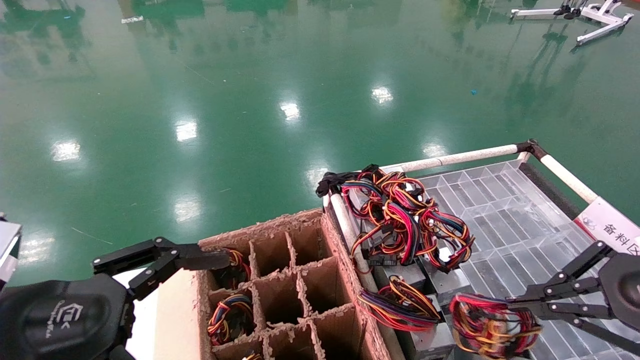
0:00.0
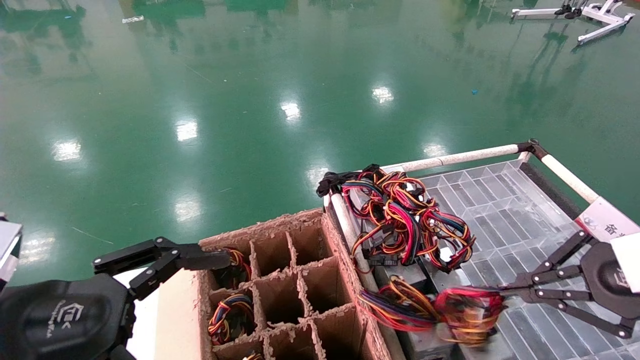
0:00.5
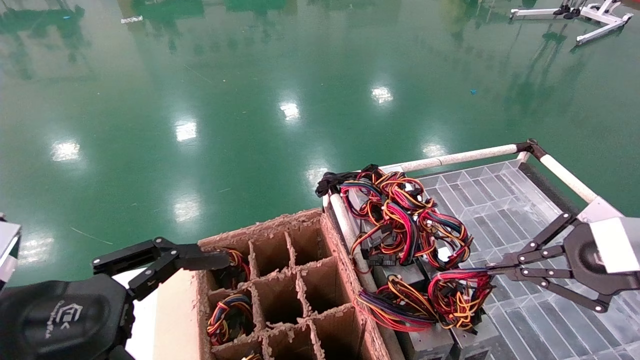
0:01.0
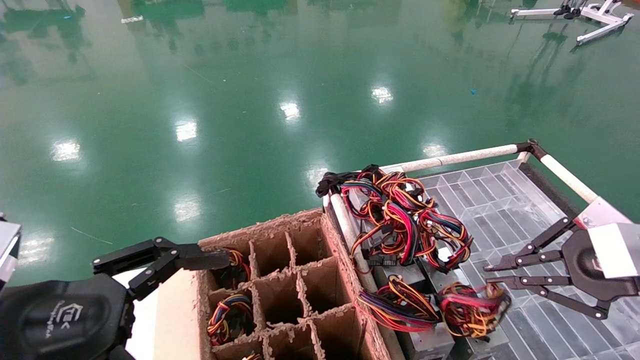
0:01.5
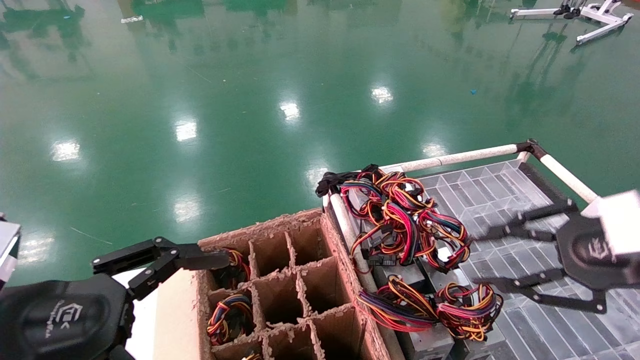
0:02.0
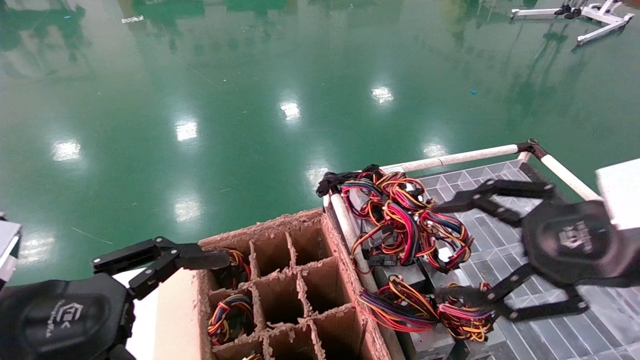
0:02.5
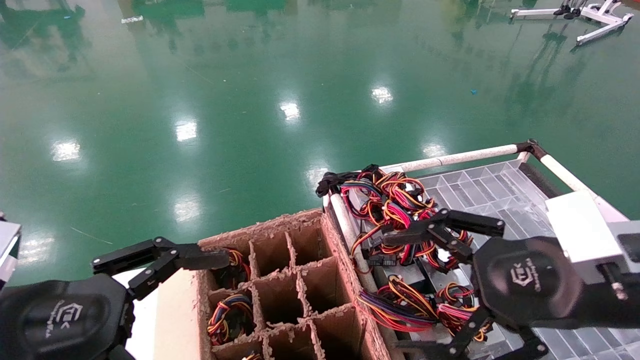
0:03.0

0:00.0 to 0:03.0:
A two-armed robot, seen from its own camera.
0:00.0 to 0:01.5: The grippers make only small movements.
0:01.5 to 0:03.0: The right gripper goes some 10 cm to the left, and opens its fingers.
